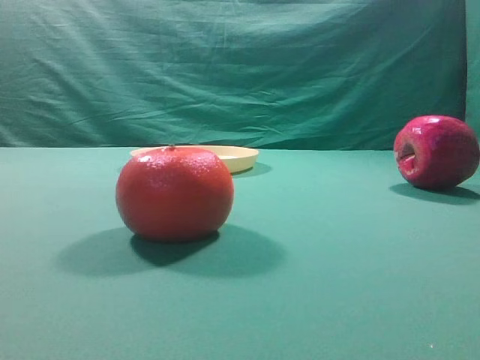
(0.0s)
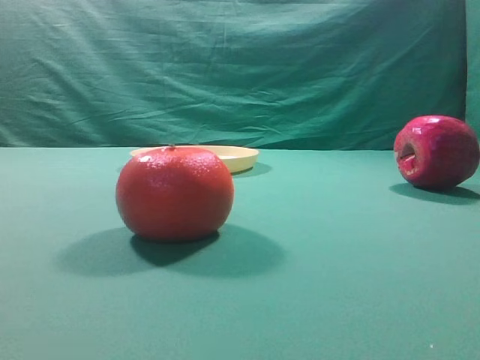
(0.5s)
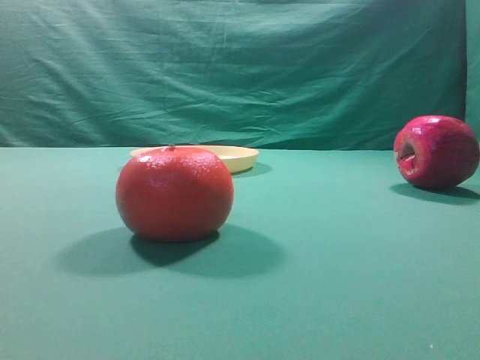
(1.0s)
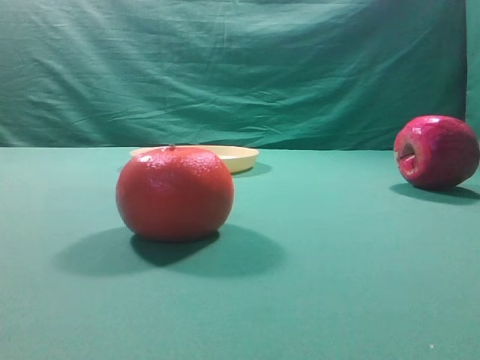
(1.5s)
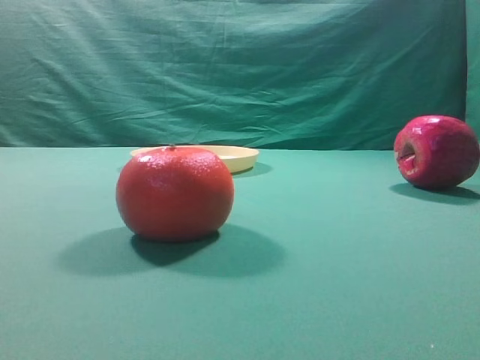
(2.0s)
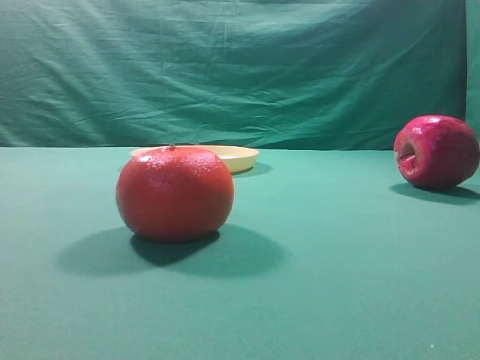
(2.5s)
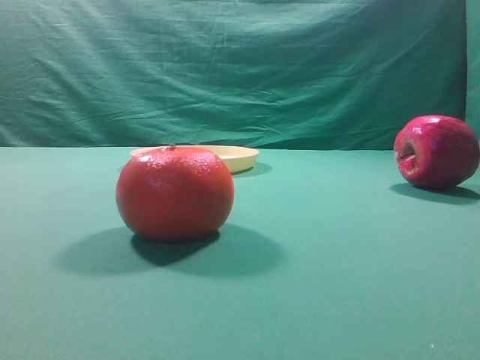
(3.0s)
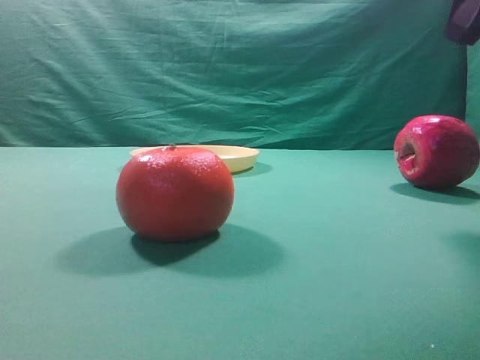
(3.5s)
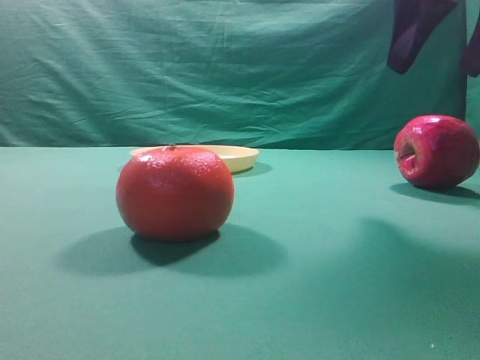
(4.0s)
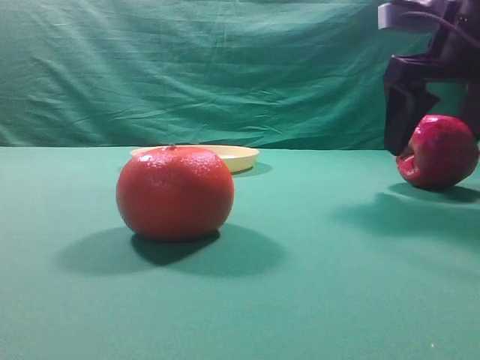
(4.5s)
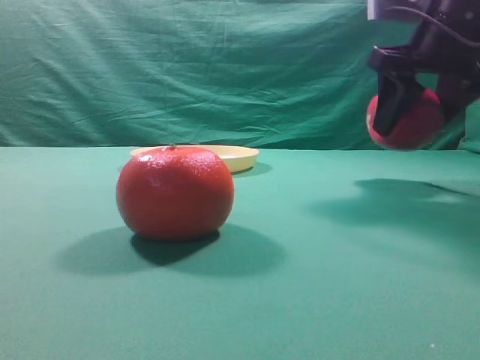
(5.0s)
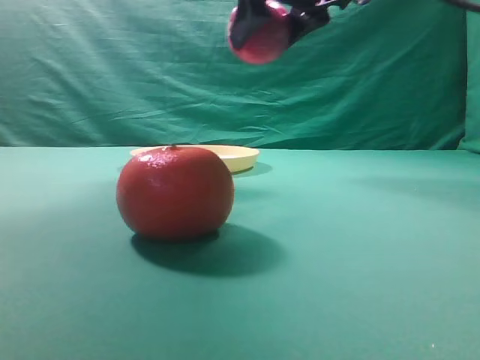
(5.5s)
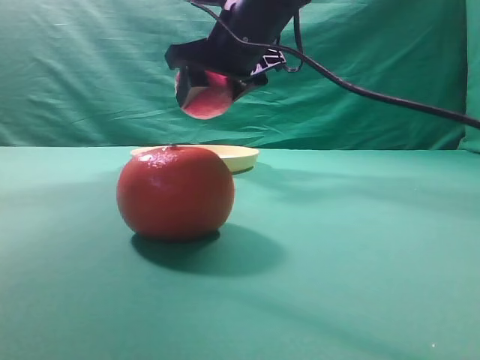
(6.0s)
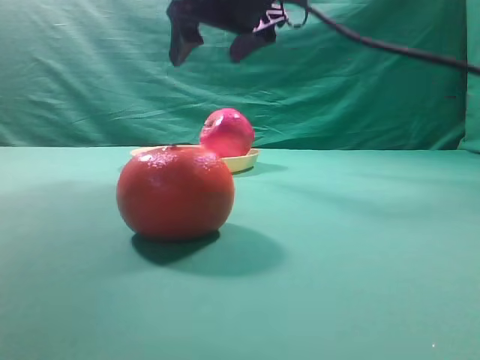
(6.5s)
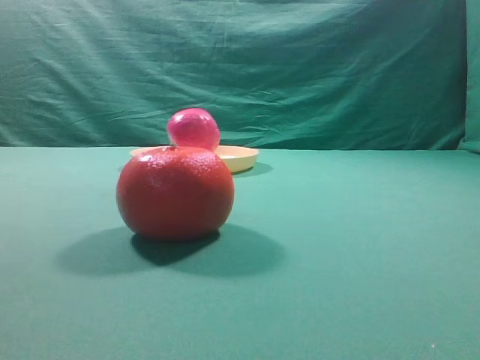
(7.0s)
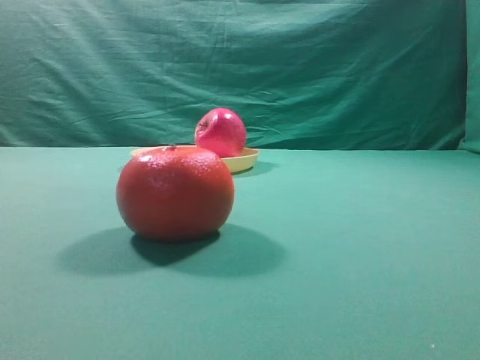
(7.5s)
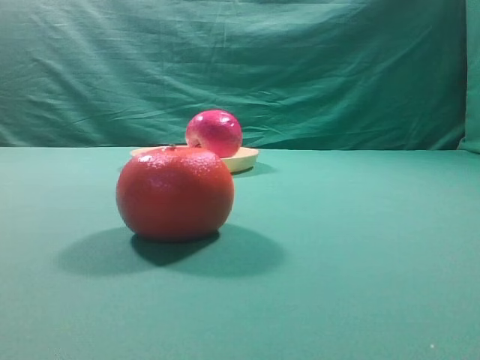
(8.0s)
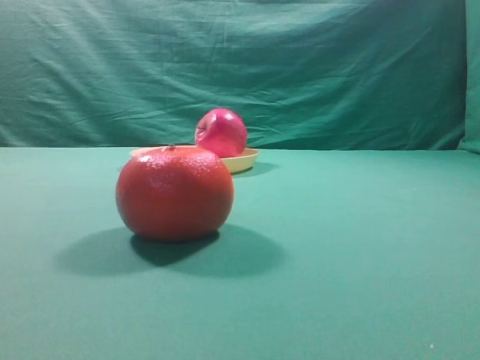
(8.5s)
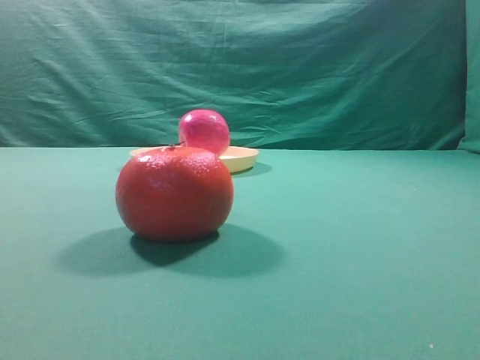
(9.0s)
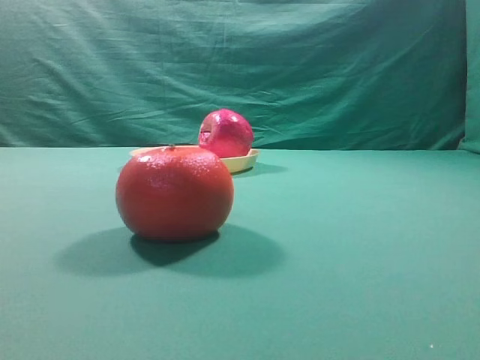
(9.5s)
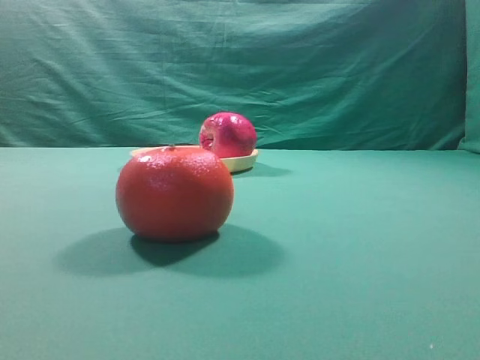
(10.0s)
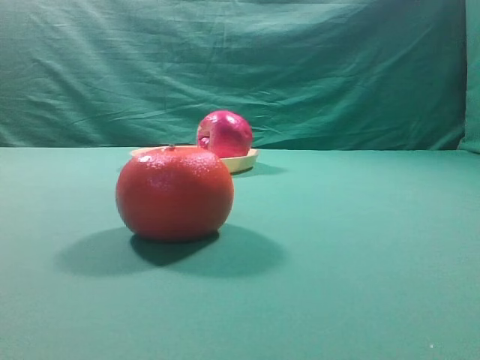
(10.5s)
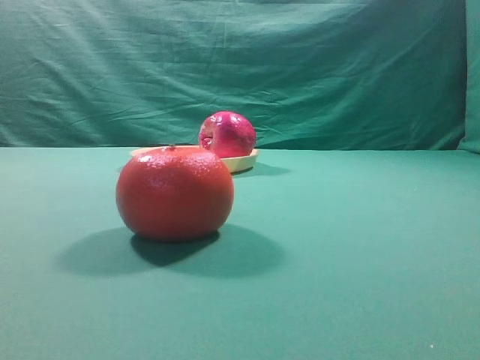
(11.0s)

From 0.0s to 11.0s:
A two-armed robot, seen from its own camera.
Task of the whole recording: grasp the apple and place it into the yellow plate.
Step, from 0.0s to 4.5s: Grasp the fruit that can keep the doctor away.
Step, from 5.0s to 6.5s: Place the picked object into the yellow plate.
